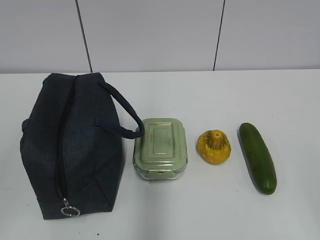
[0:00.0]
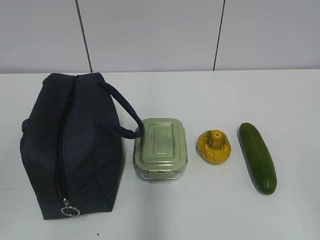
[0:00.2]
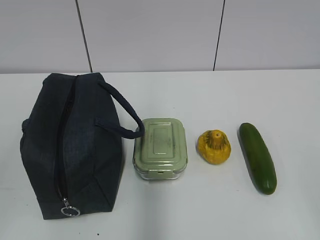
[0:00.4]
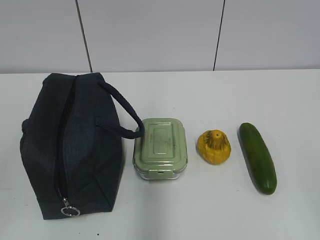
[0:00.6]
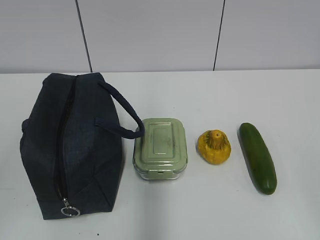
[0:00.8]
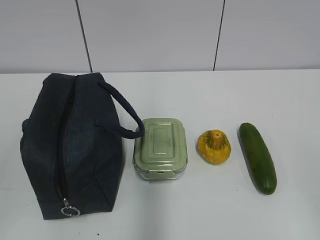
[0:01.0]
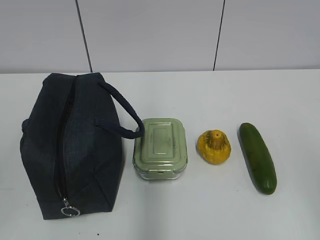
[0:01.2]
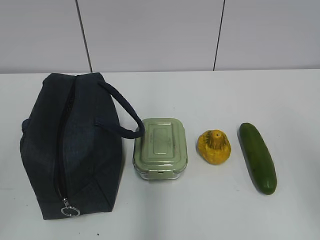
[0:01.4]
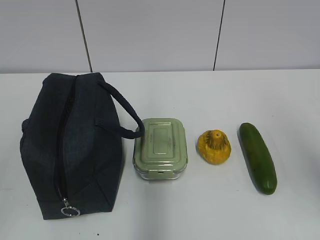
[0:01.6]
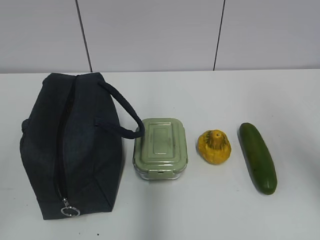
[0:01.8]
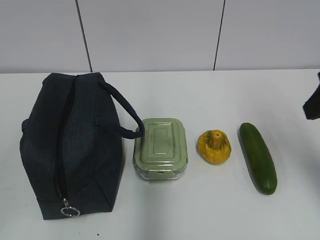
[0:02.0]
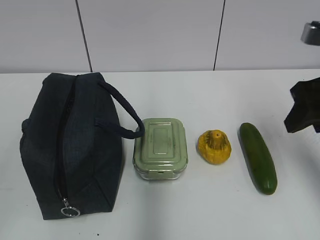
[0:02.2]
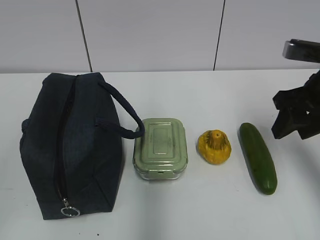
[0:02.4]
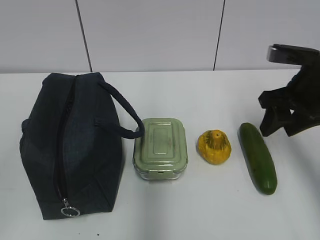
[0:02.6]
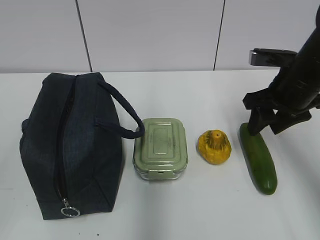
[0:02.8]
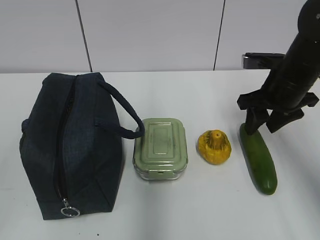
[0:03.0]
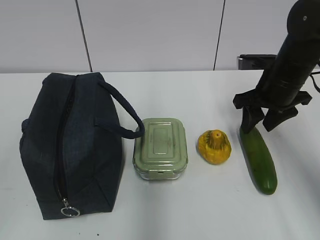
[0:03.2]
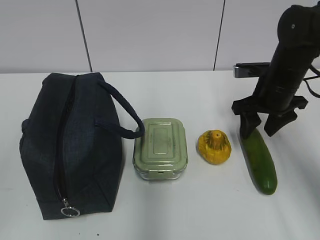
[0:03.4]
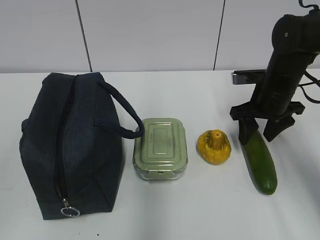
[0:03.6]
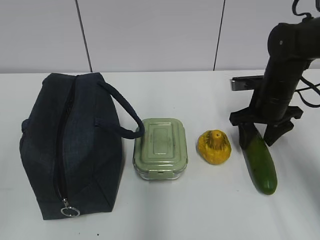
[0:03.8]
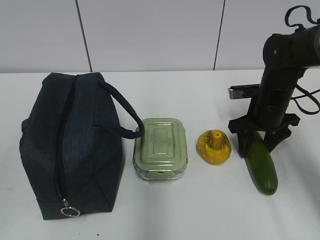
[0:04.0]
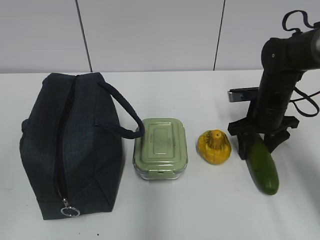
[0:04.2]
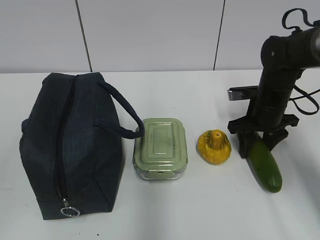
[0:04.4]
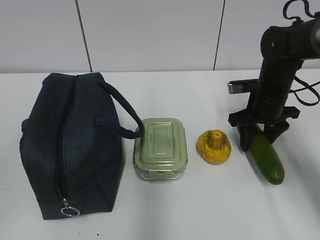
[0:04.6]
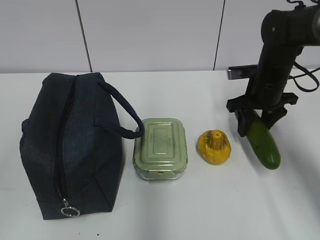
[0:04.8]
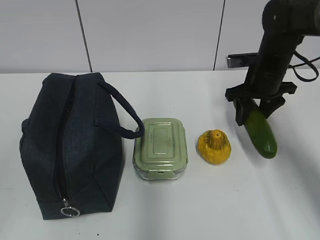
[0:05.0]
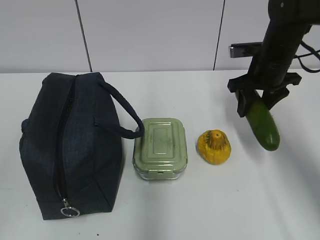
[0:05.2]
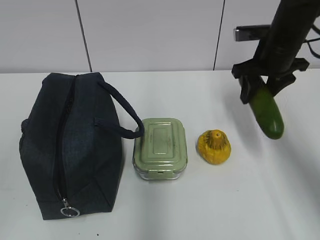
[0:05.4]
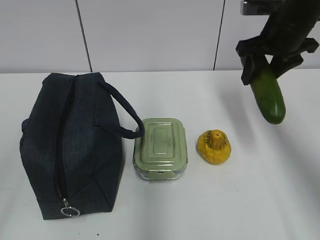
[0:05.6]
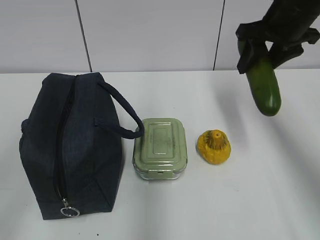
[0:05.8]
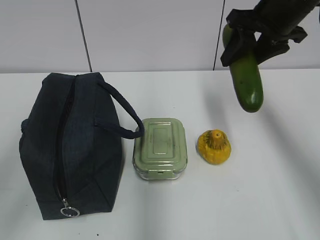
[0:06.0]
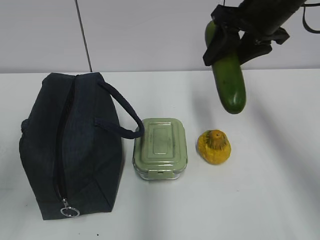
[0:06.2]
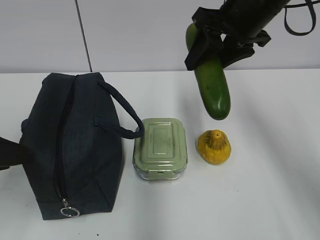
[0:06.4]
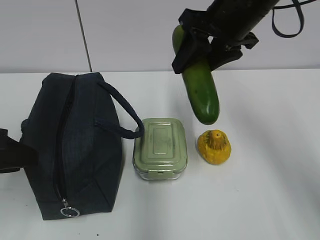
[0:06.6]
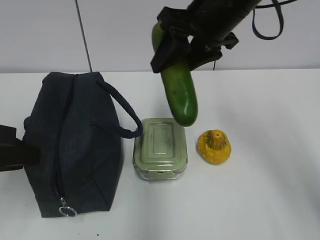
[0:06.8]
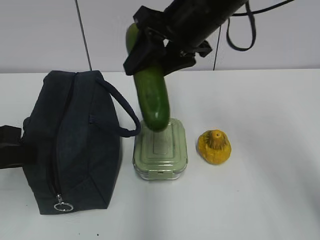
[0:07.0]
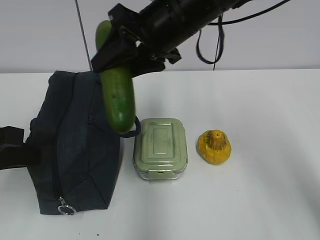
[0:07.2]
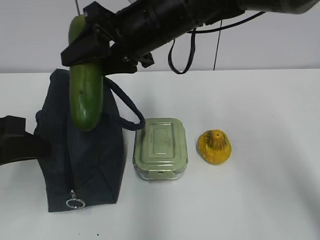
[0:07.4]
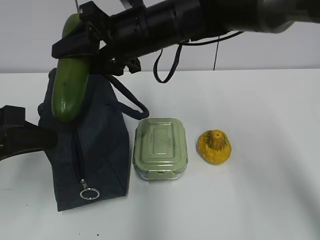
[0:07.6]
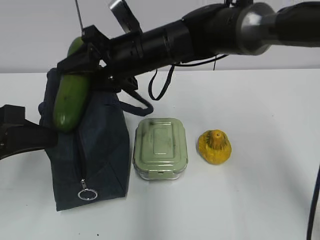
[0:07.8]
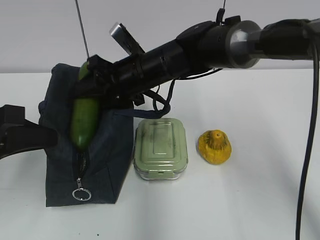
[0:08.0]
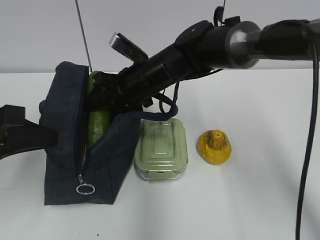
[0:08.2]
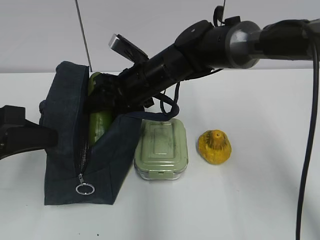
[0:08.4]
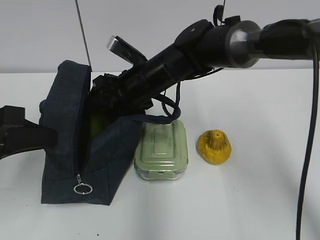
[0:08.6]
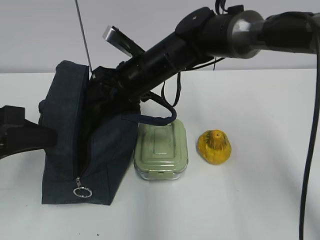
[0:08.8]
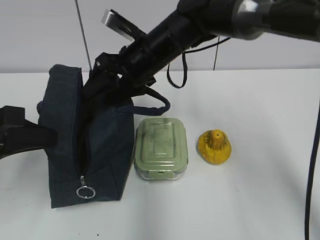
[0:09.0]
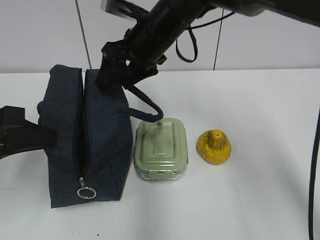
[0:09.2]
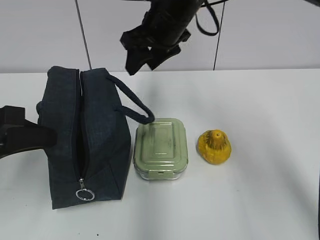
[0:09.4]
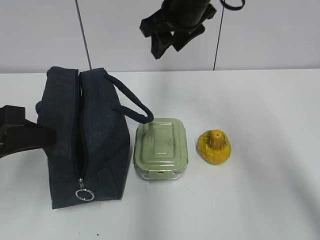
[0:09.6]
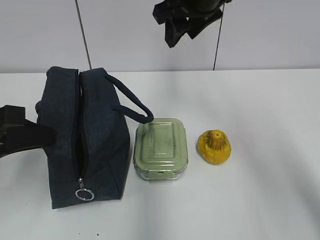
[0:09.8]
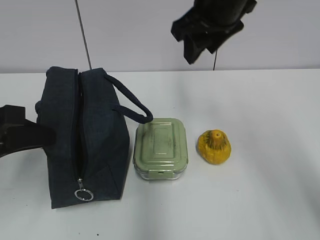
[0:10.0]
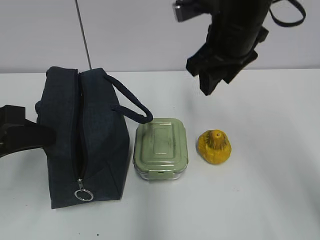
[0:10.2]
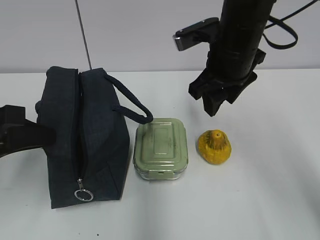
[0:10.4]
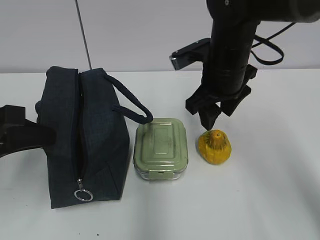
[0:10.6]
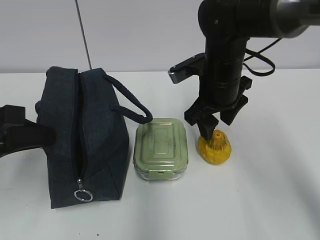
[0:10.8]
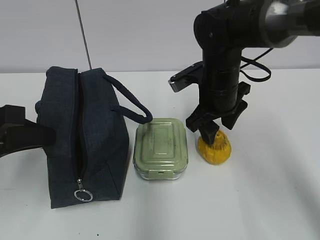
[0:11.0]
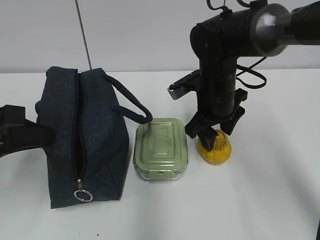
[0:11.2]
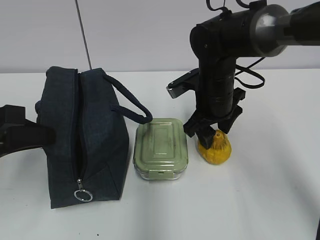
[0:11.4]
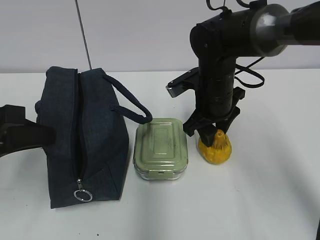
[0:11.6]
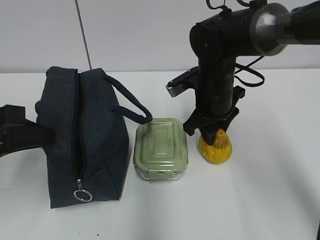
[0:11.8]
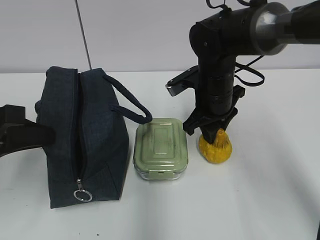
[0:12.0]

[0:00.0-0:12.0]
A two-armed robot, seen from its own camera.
Step, 0:00.0 to 0:04.2: Grab the cucumber with your right hand.
Step, 0:04.4 to 0:07.6: Grab the lunch bag with your left hand.
Step, 0:07.8 to 0:08.6: Place it into the bag with your right hand.
0:01.6 to 0:03.0: The right gripper moves forward and downward, some 25 cm.
0:03.0 to 0:04.4: The right gripper heads downward, covering some 10 cm.
0:04.4 to 0:06.0: The left gripper travels forward by some 10 cm; the right gripper moves upward, roughly 20 cm.
0:06.0 to 0:07.6: The left gripper goes some 15 cm forward and downward, and closes. The right gripper is displaced to the left by roughly 20 cm.
0:09.0 to 0:10.4: The right gripper is displaced to the right by some 10 cm, and goes upward and returns, some 10 cm each way.
0:10.4 to 0:12.0: The right gripper goes roughly 10 cm downward.

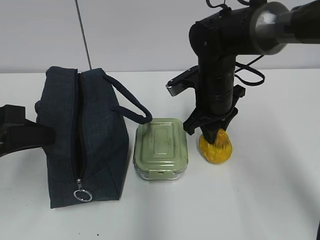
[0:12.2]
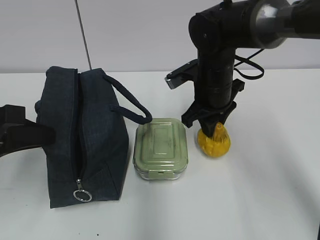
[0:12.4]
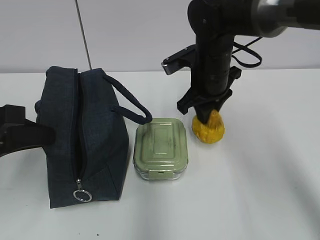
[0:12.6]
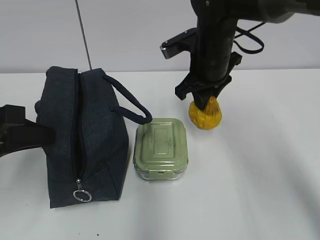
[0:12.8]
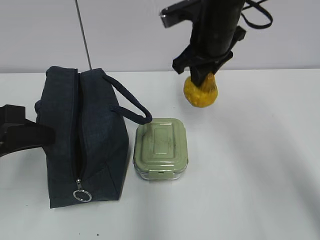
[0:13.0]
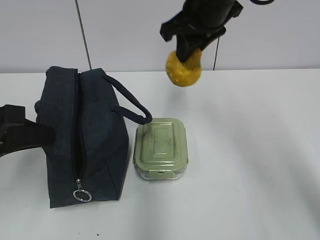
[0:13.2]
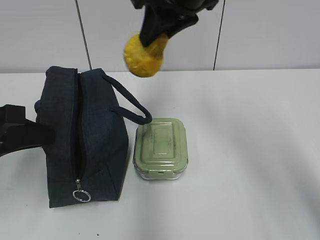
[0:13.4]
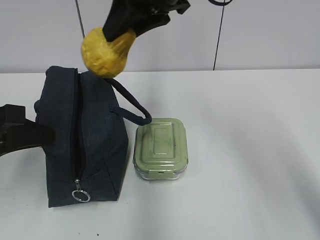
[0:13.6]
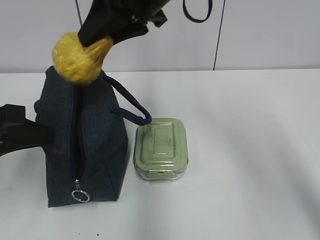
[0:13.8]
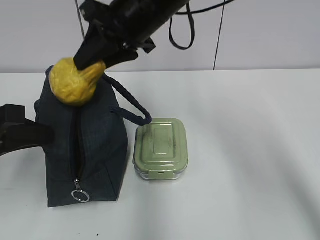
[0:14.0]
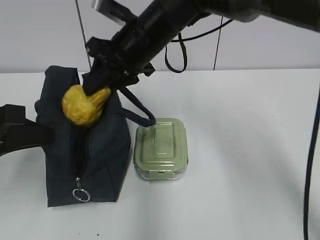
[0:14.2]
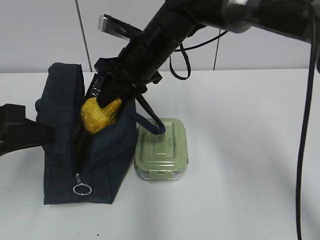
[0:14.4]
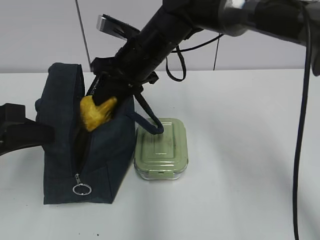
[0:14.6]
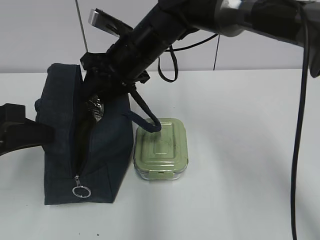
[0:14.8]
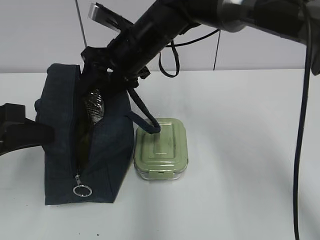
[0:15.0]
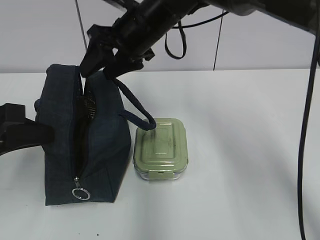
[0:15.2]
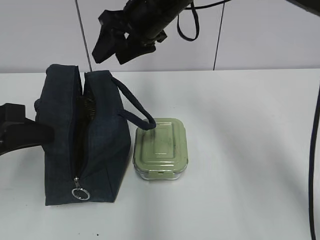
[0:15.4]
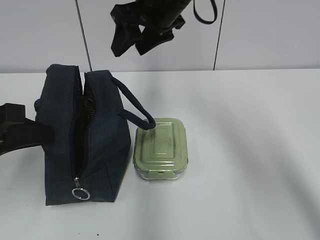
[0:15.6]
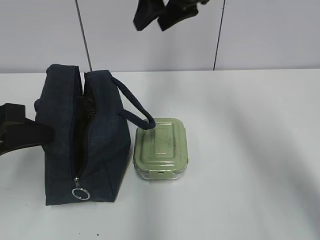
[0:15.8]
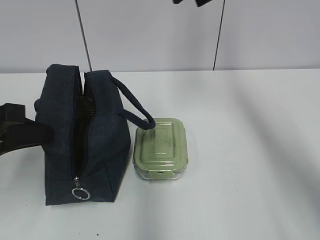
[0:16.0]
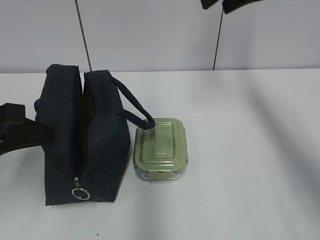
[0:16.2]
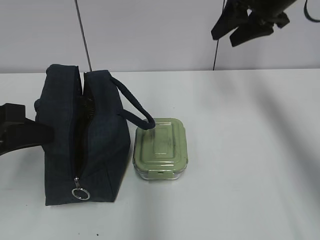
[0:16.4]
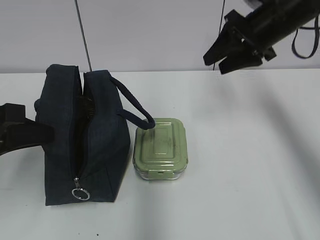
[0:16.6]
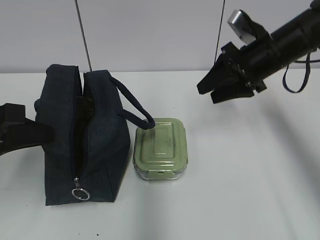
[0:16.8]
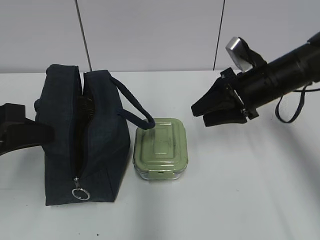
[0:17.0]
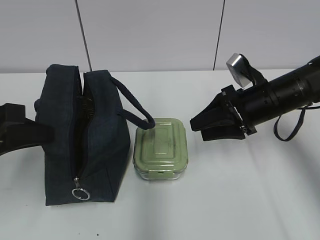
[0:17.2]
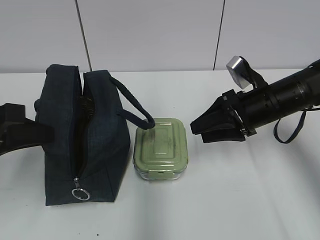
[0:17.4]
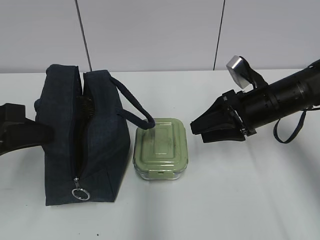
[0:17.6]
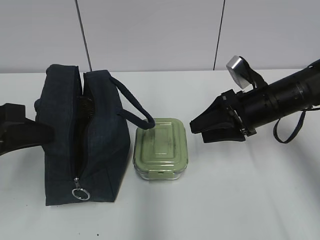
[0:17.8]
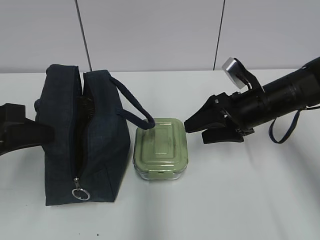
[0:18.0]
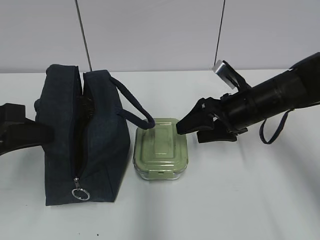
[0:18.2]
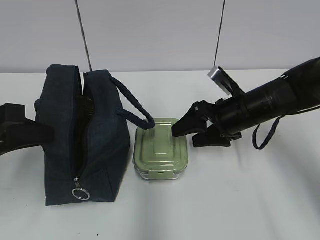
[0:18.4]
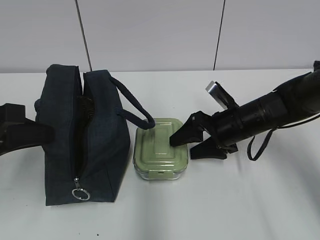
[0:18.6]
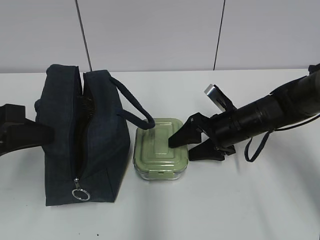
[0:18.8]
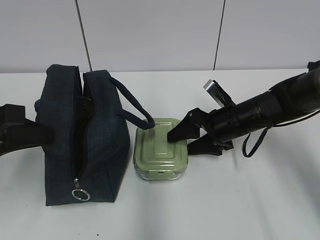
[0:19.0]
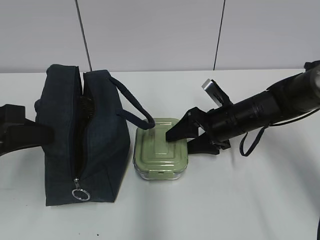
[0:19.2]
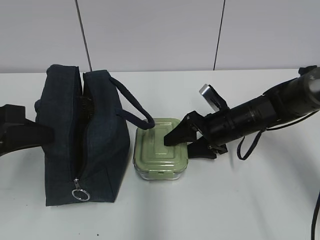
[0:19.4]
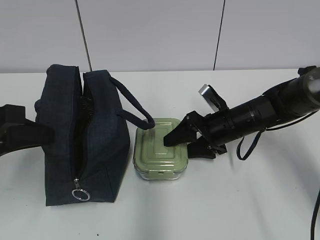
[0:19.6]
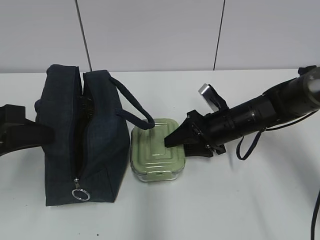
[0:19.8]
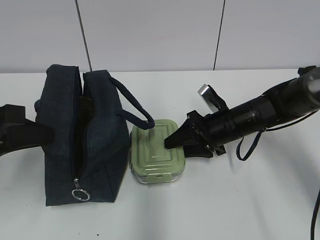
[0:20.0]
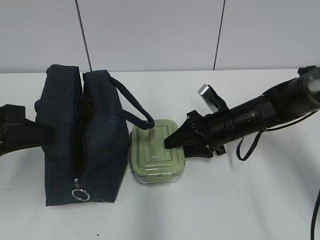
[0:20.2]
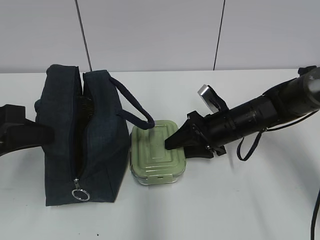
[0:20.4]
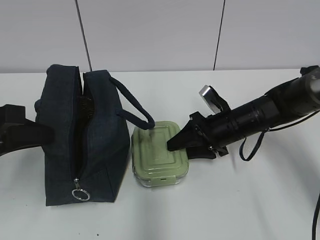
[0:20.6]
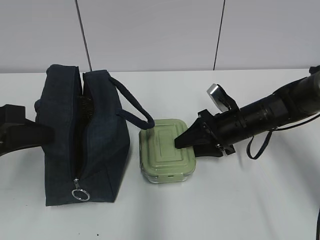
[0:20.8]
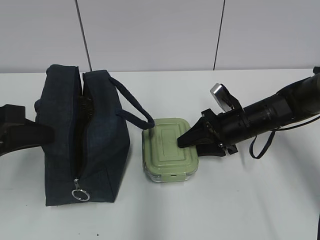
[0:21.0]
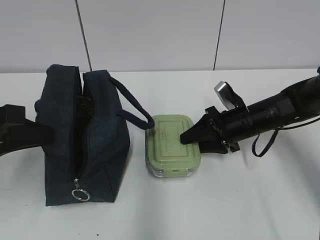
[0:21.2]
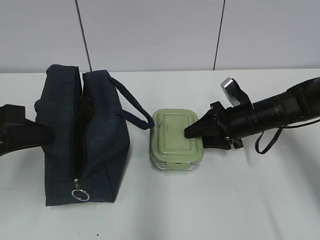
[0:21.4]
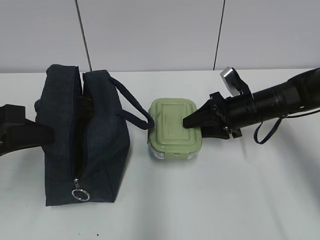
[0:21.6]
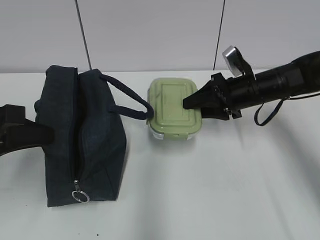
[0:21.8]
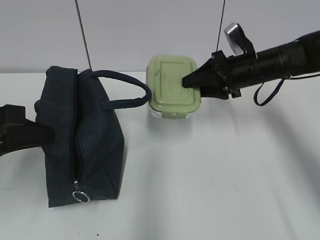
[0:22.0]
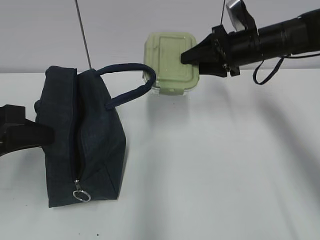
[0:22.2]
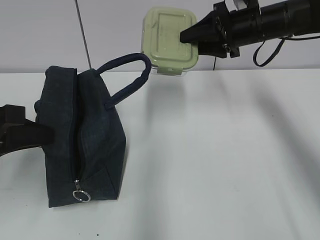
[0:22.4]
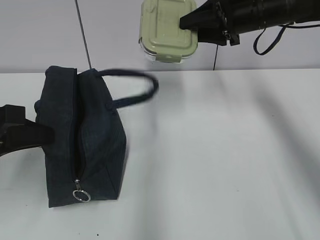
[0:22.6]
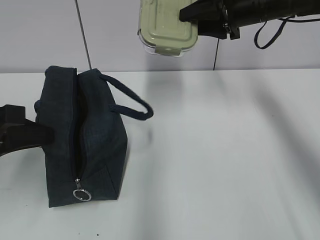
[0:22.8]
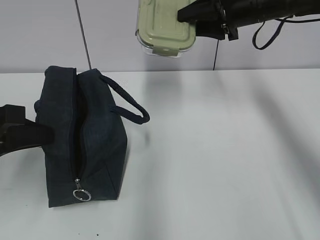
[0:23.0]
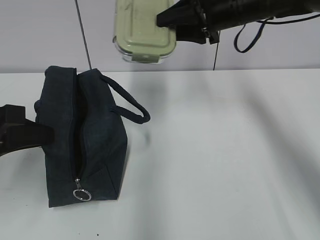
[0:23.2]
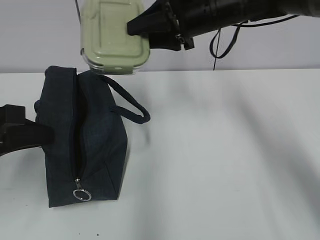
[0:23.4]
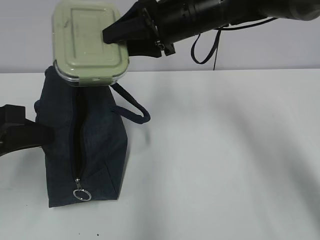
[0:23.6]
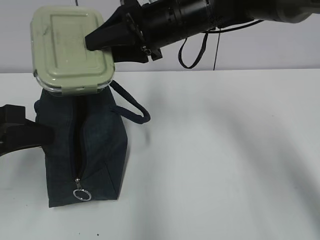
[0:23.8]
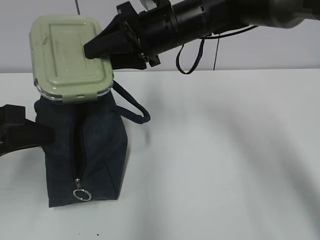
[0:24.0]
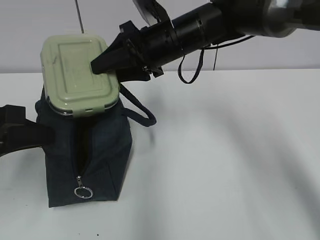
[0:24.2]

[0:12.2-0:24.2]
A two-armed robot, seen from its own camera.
Step, 0:12.2 to 0:14.8: Place it into the bag with your right hand.
Step, 0:15.0 to 0:20.2: Grab the lunch box with your right hand.
0:12.2 to 0:13.8: The right gripper heads upward and to the left, covering about 20 cm.
0:13.8 to 0:15.2: The right gripper shifts about 10 cm downward and forward, and opens up.
0:15.2 to 0:16.6: The right gripper travels to the right by approximately 20 cm.
0:16.6 to 0:18.2: The right gripper travels downward and backward by roughly 15 cm.
0:18.2 to 0:19.8: The right gripper travels downward by roughly 5 cm.
0:19.8 to 0:21.2: The grippers make only small movements.
0:21.2 to 0:22.6: The right gripper goes roughly 20 cm upward.
0:22.6 to 0:24.2: The right gripper heads to the left, covering some 15 cm.
